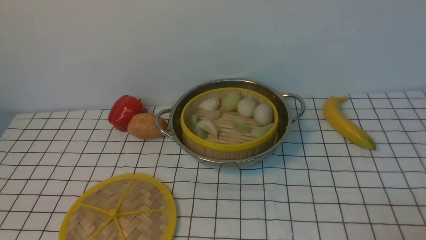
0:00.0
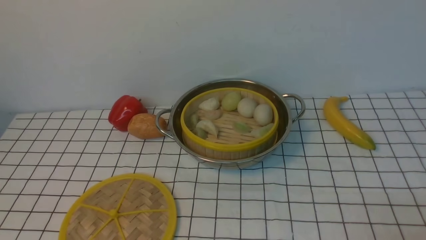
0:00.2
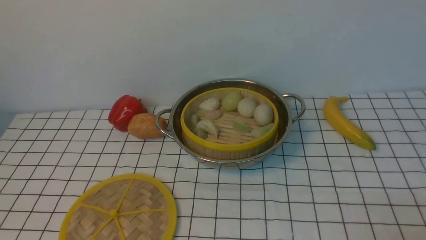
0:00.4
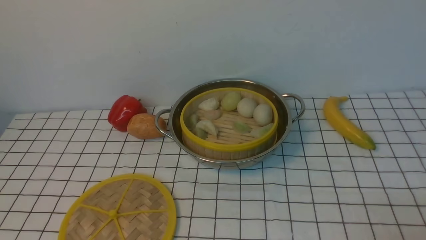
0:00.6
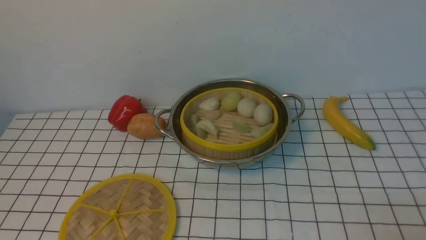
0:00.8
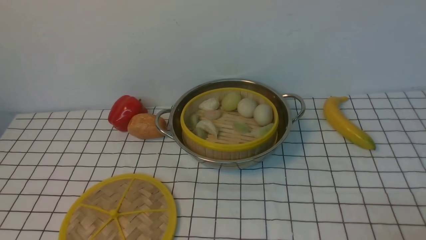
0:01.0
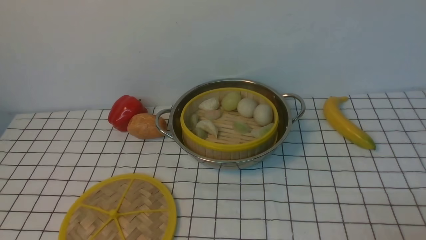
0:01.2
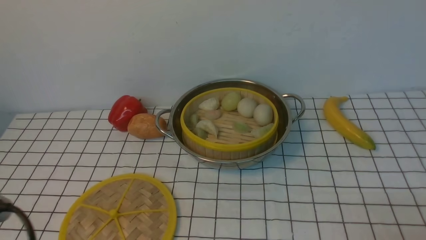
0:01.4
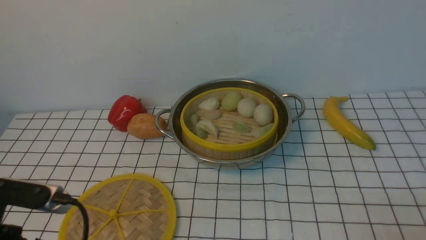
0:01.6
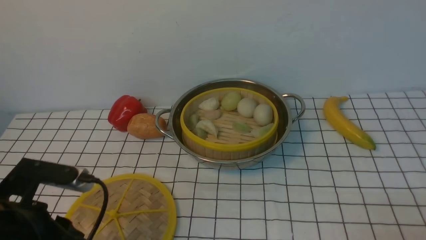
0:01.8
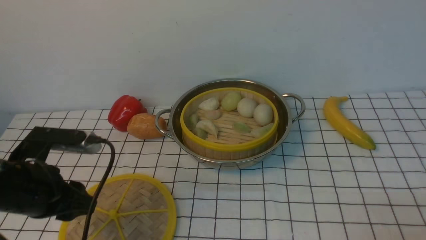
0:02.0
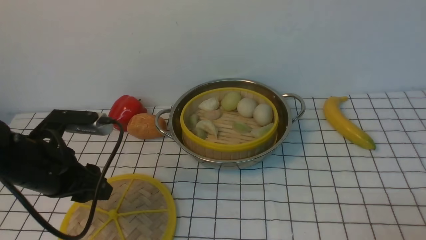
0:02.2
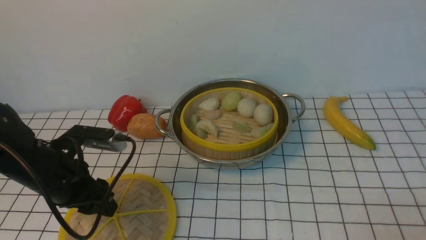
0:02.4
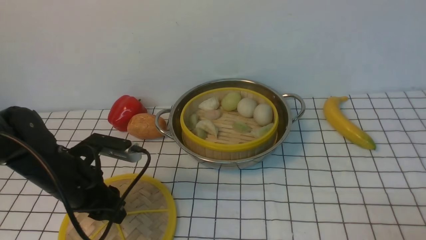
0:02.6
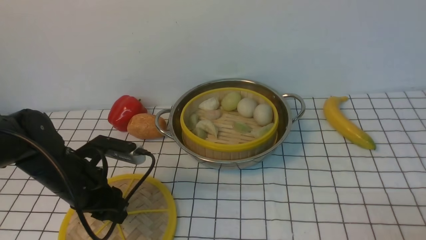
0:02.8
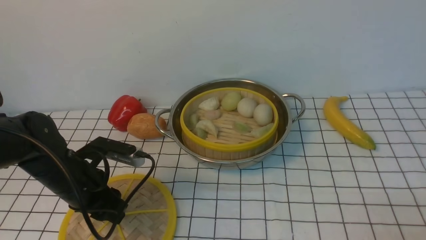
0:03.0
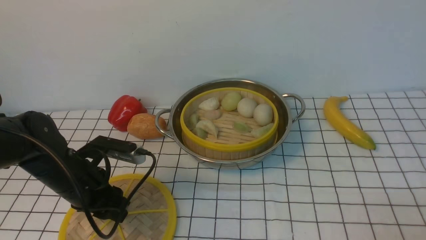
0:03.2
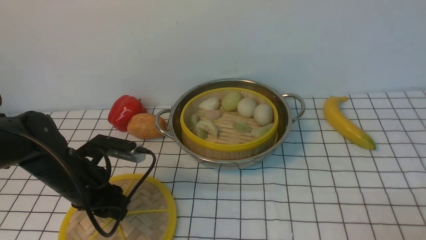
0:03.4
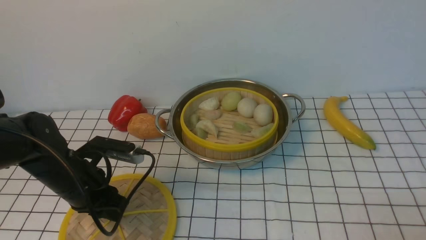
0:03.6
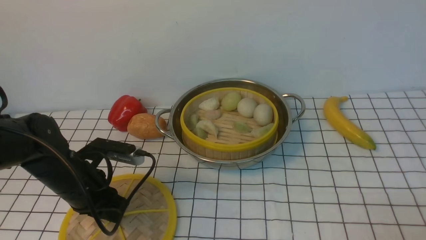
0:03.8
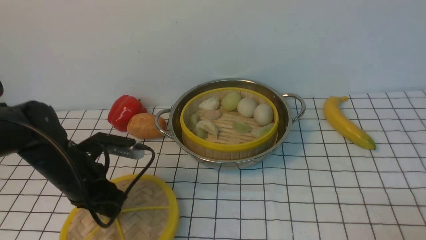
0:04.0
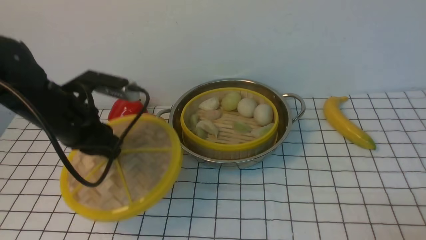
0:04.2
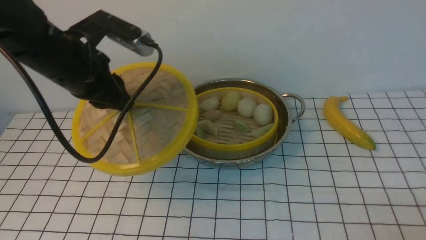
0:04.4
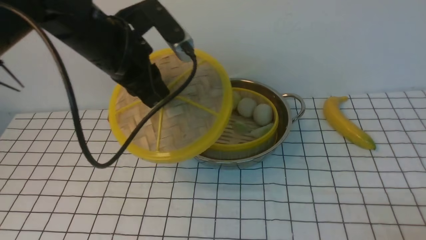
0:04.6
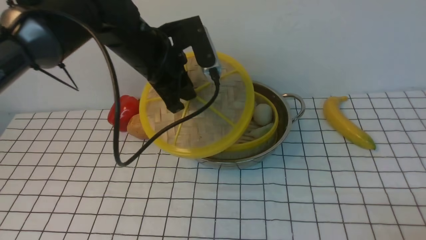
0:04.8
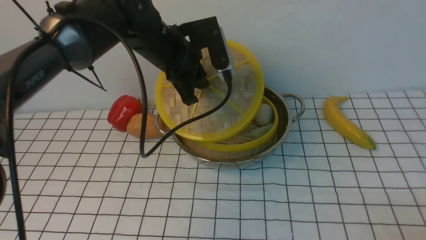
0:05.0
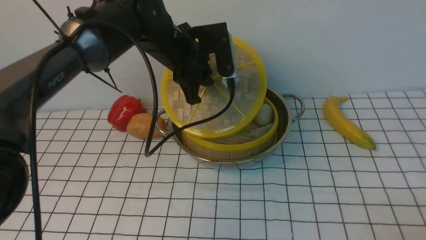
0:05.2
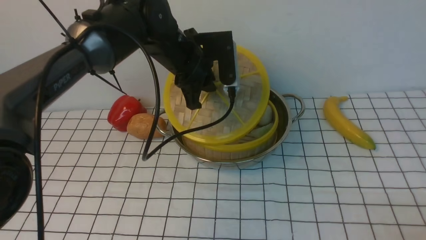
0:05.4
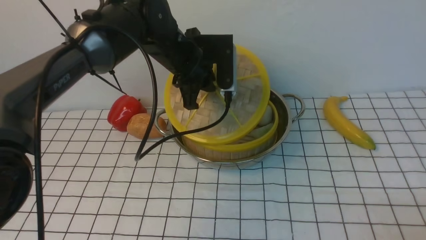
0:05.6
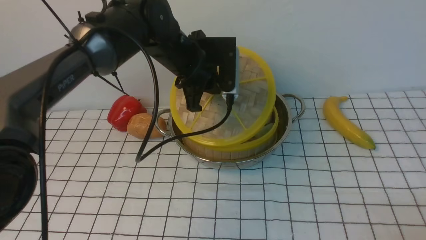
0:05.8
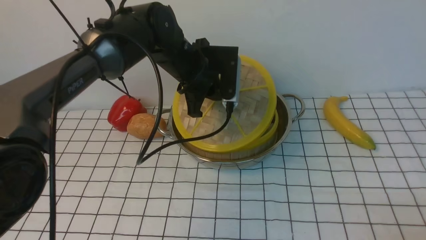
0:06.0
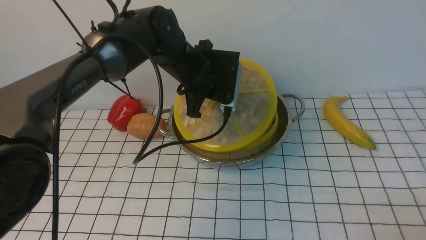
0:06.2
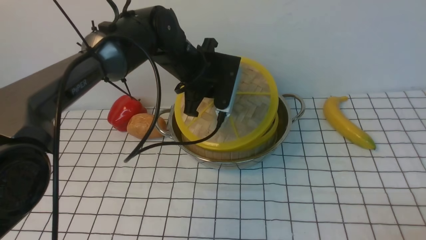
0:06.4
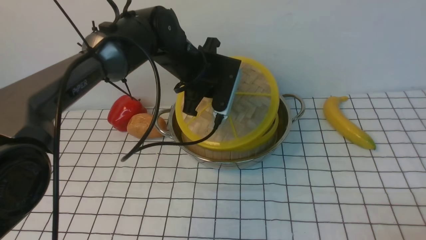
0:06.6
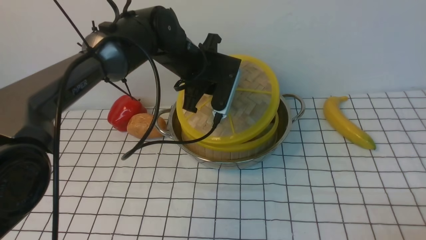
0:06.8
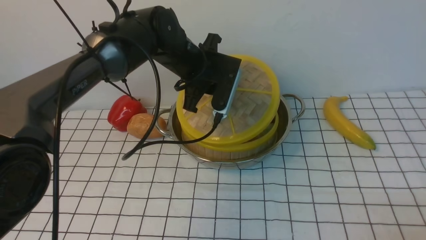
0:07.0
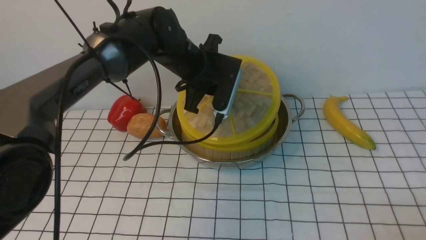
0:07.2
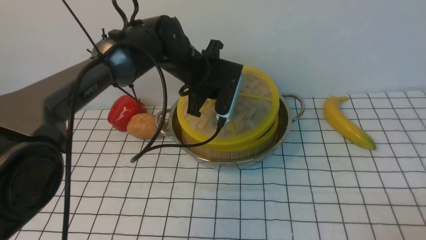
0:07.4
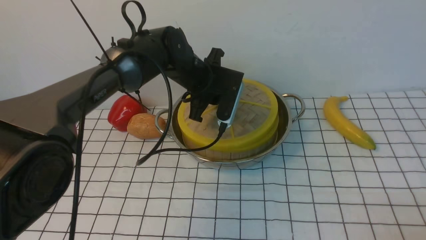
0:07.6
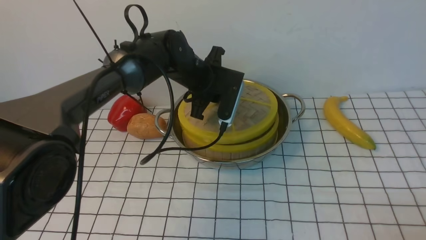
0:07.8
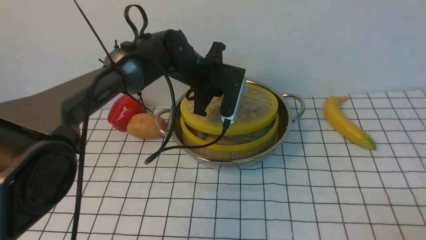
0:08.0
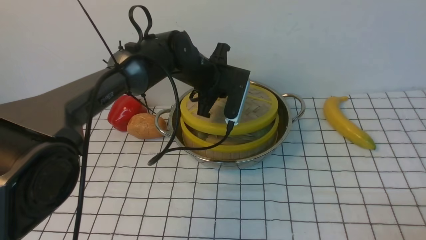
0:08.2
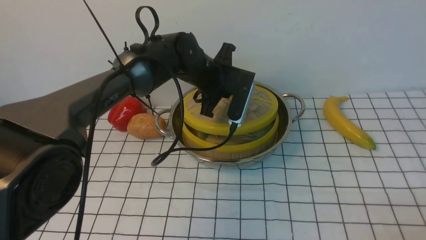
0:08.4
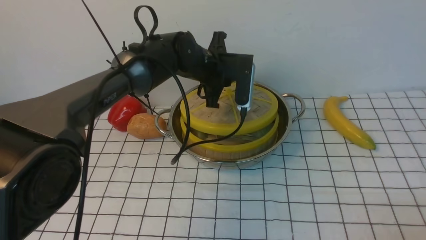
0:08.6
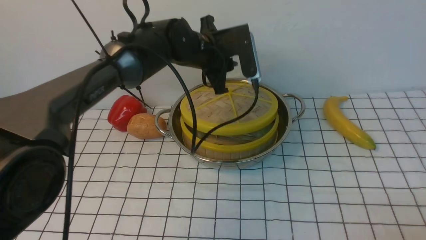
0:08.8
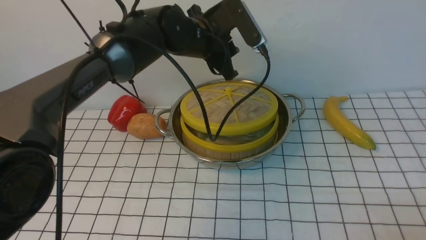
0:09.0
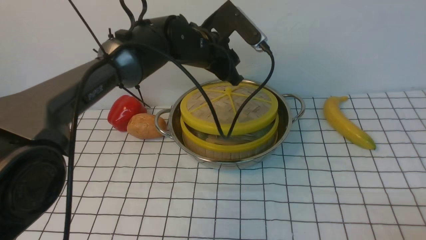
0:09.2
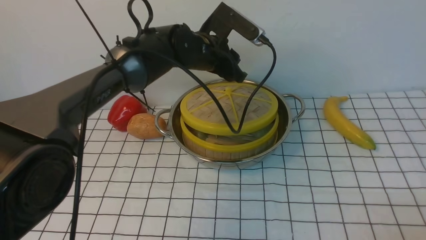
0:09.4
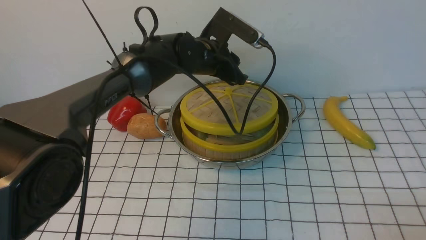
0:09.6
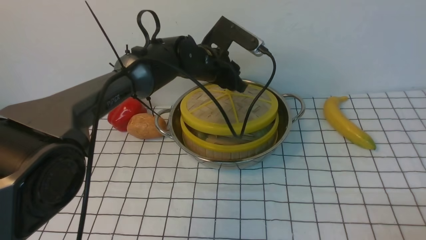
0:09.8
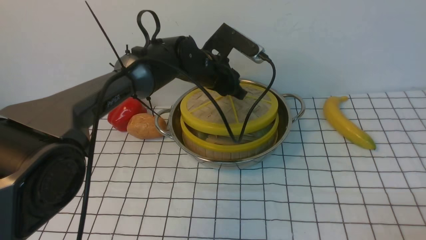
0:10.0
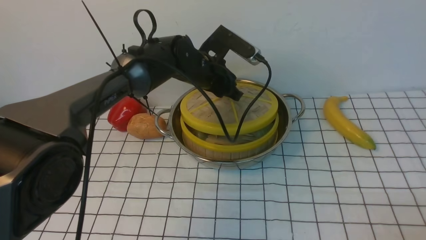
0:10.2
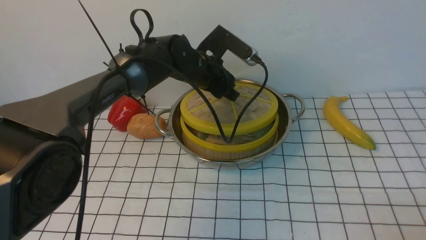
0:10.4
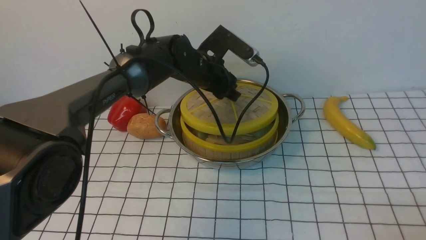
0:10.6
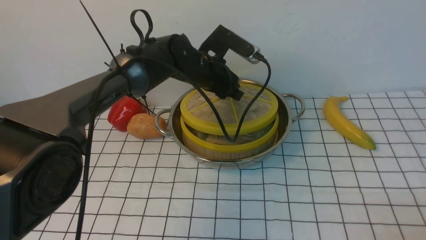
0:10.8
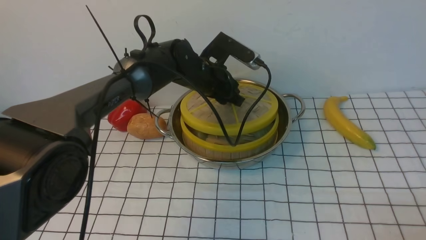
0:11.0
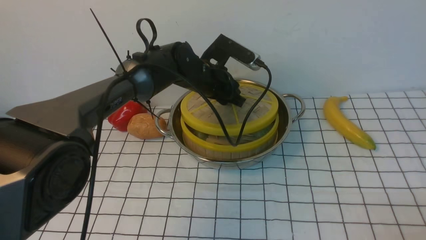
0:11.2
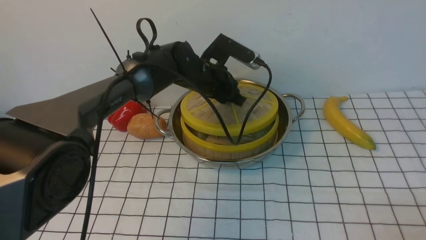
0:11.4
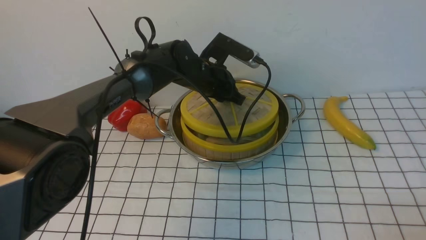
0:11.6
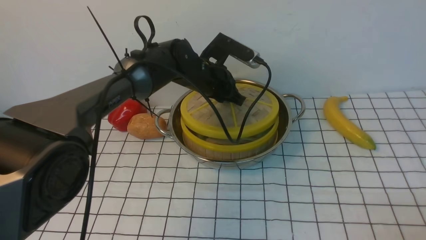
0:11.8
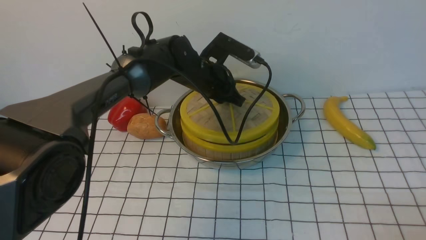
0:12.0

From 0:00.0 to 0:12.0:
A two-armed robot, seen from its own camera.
Task of the whole recording: place the steamer in the pot on the white tablecloth, and put the lid on the steamer.
Step, from 0:00.0 to 0:04.0: use the left arm to lift the lid of the steamer.
From 0:00.0 to 0:01.6: The left gripper moves forward, some 5 cm.
From 0:01.6 to 0:03.0: The left gripper goes roughly 20 cm forward and downward.
From 0:03.0 to 0:04.4: The left gripper travels upward by roughly 15 cm, and closes its fingers.
From 0:04.4 to 0:06.0: The left gripper heads to the right, forward and downward, covering roughly 15 cm.
From 0:06.0 to 0:07.6: The grippers stay close to where they were, moving slightly.
From 0:09.0 to 0:10.4: The left gripper heads downward, covering about 5 cm.
From 0:10.4 to 0:12.0: The left gripper closes.

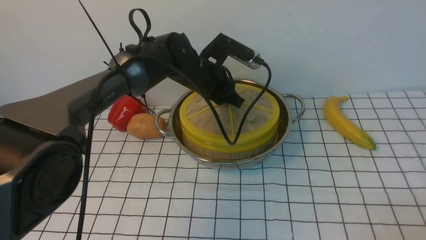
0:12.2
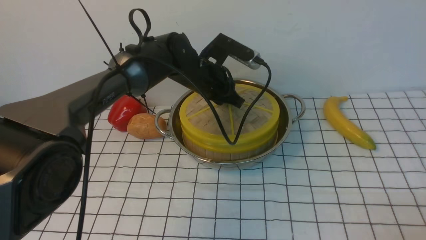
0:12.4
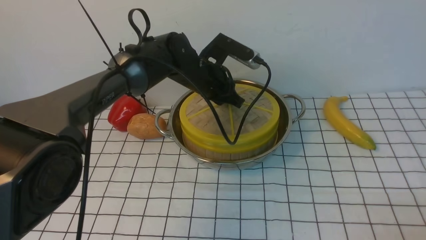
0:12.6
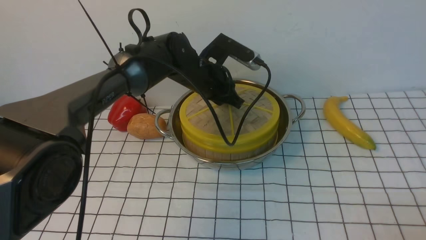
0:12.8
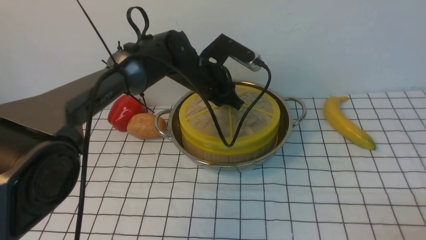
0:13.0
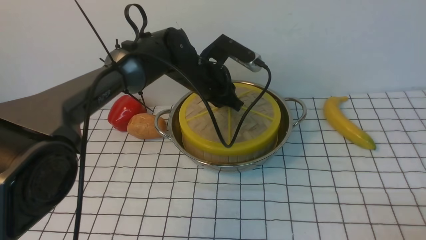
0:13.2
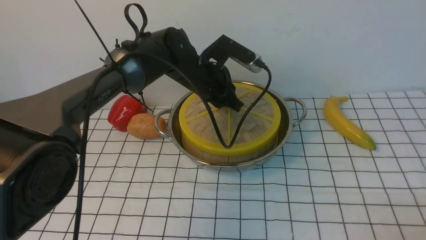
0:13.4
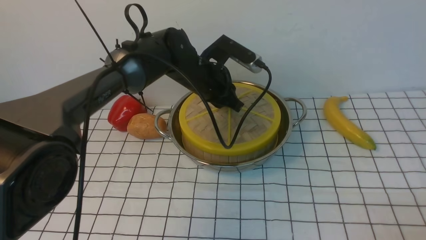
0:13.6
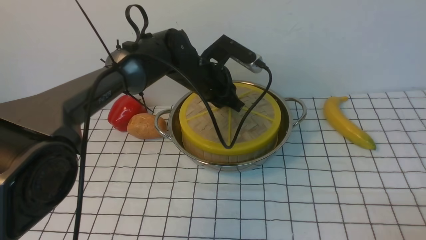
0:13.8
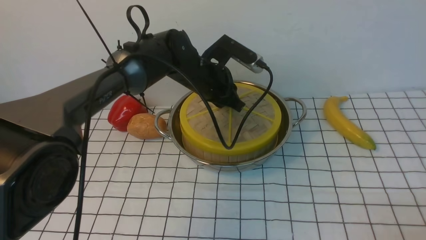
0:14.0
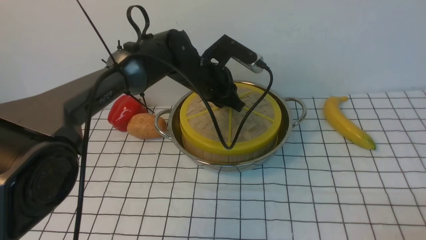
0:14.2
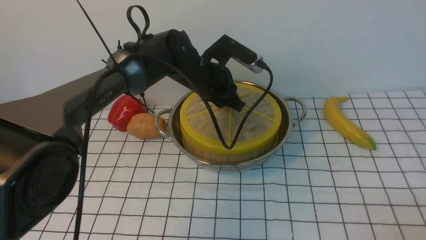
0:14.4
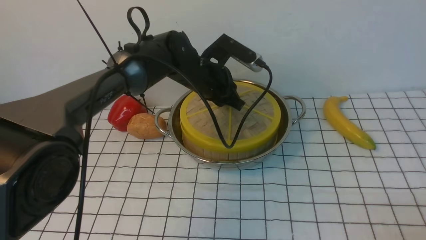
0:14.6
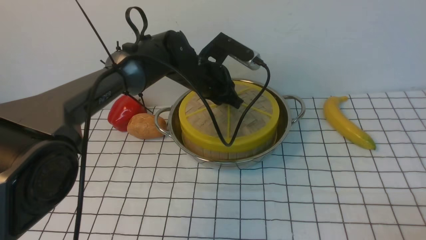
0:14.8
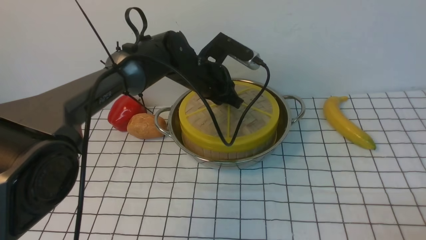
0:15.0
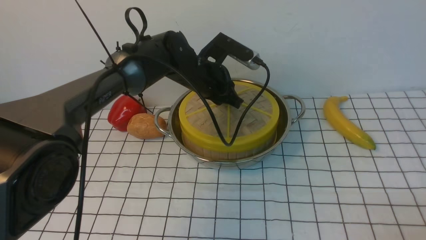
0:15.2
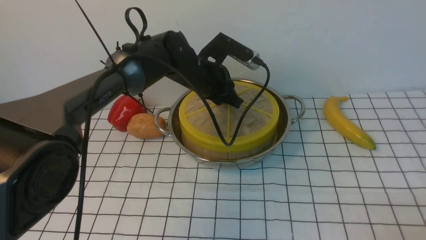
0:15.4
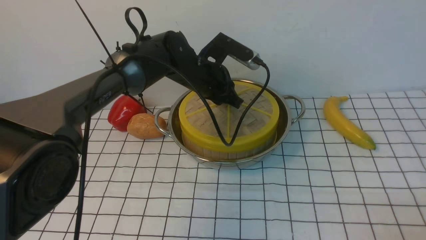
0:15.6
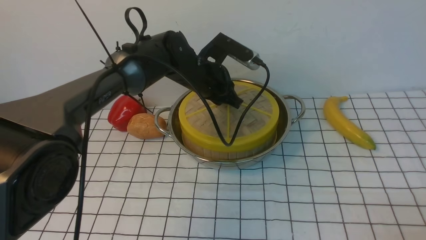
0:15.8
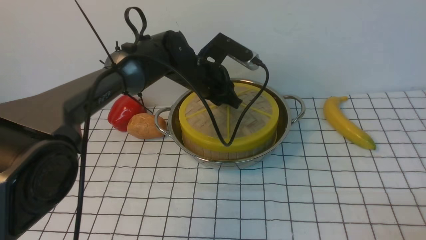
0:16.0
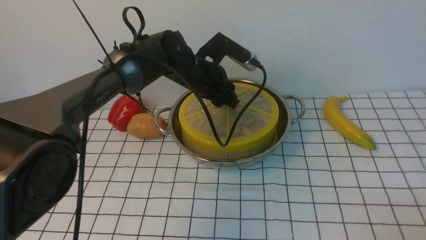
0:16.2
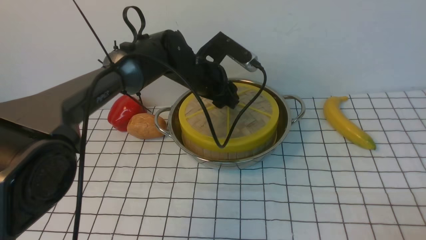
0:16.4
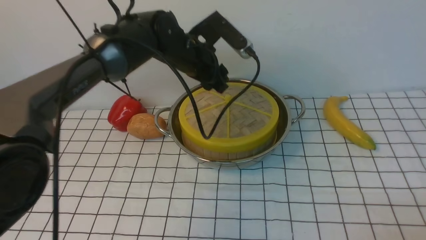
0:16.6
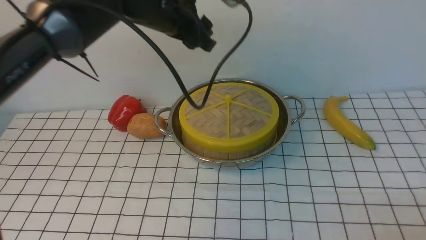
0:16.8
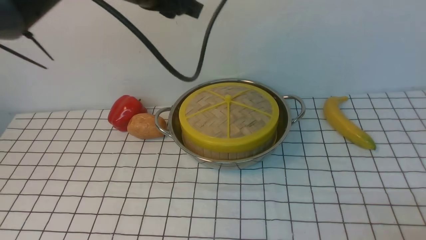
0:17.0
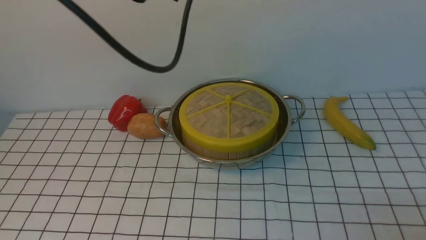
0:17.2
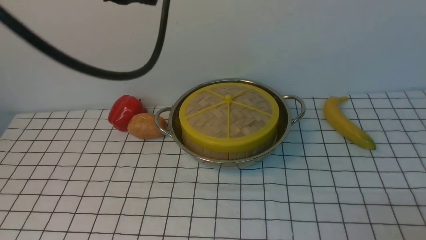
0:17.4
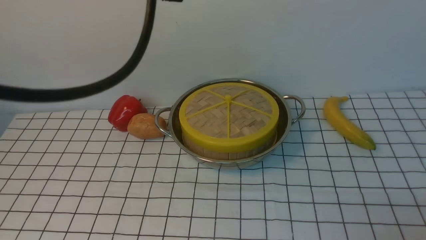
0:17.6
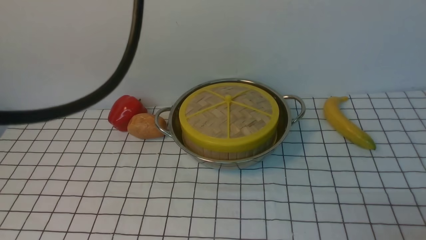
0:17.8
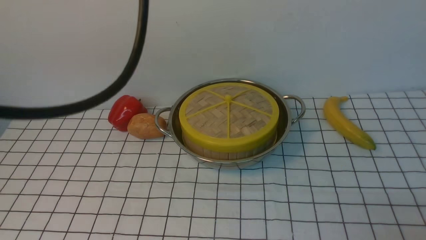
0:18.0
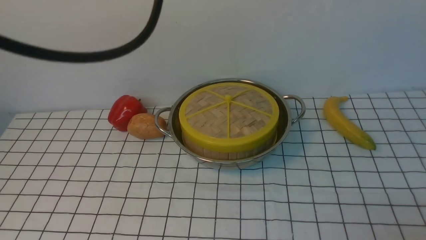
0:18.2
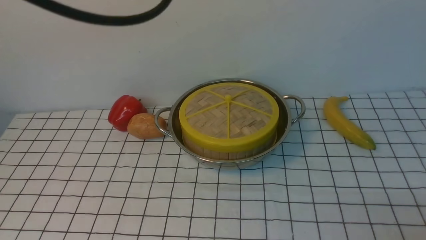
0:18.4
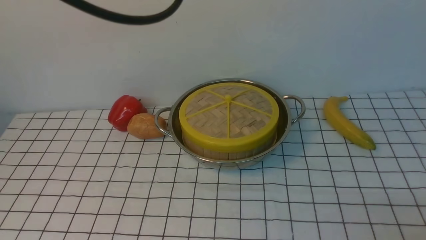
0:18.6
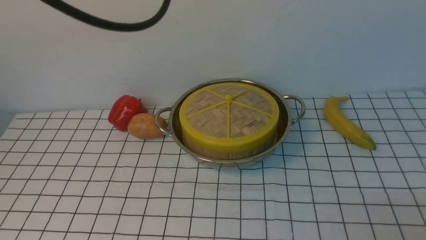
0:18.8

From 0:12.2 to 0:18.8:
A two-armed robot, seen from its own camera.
Task of the whole recording: place the steamer in the pot on the white tablecloth, and put the lid on the steamer.
Step, from 0:12.2 to 0:16.6: use the left arm to place the steamer lid on the steamer.
From 0:12.2 to 0:15.4: Both grippers stay put.
From 0:15.4 to 0:17.2: The left gripper is displaced upward and backward by approximately 25 cm, and opens and closes again.
From 0:17.2 to 0:18.8: The left gripper goes approximately 5 cm upward.
